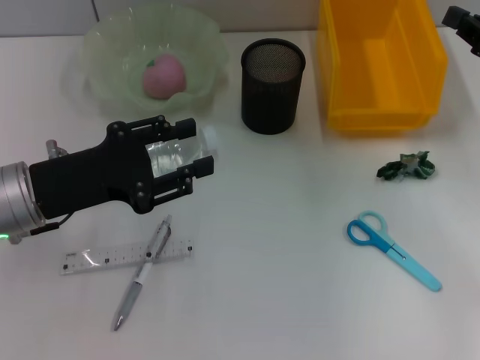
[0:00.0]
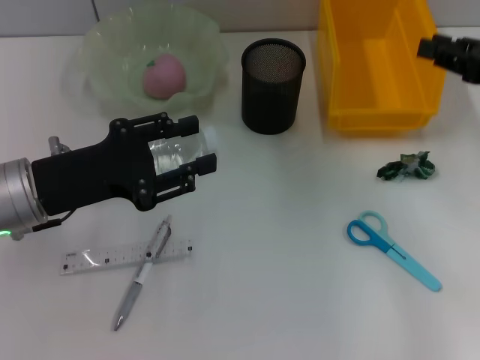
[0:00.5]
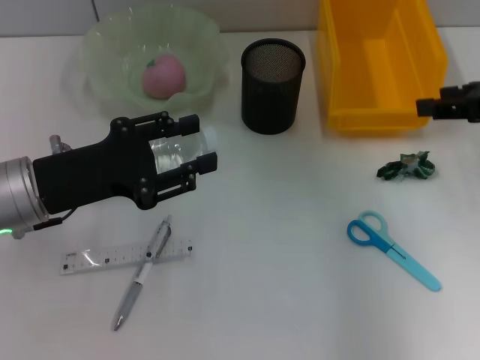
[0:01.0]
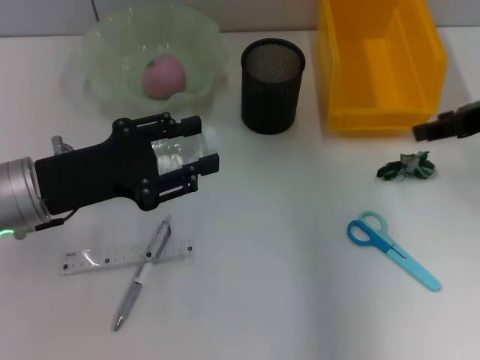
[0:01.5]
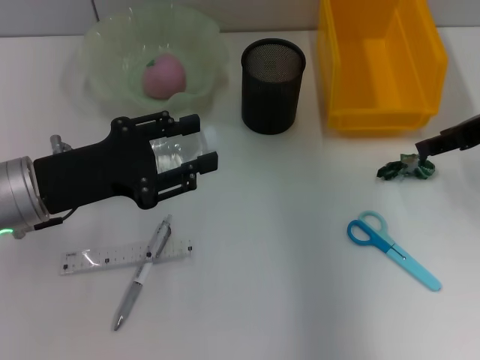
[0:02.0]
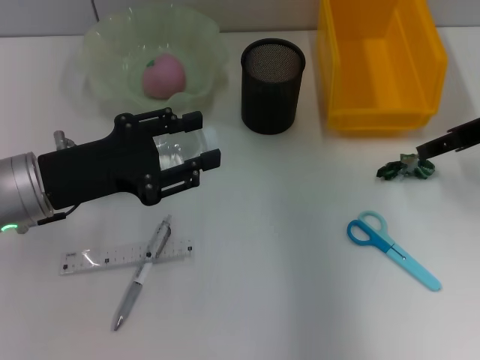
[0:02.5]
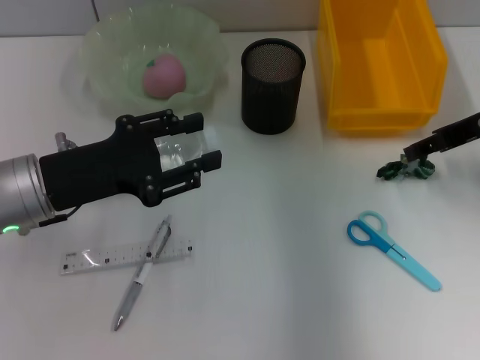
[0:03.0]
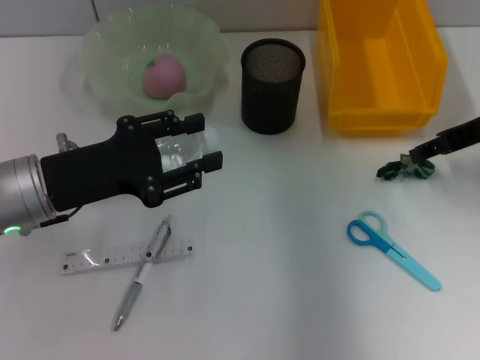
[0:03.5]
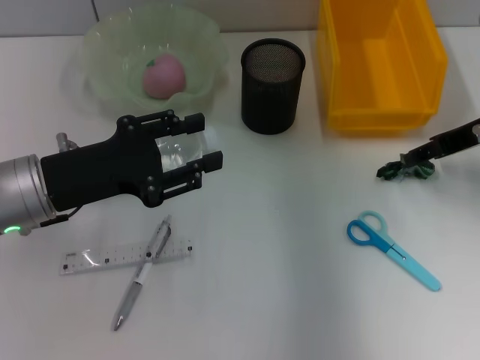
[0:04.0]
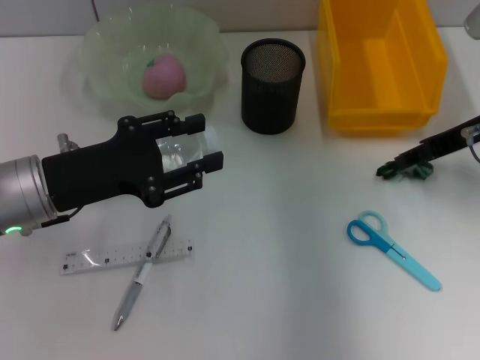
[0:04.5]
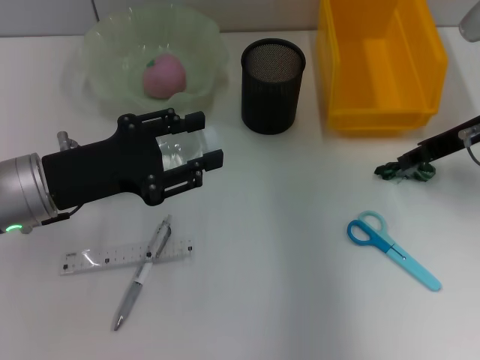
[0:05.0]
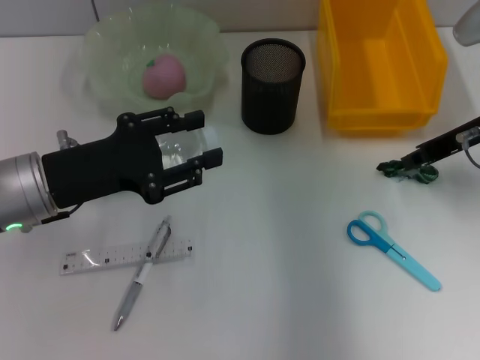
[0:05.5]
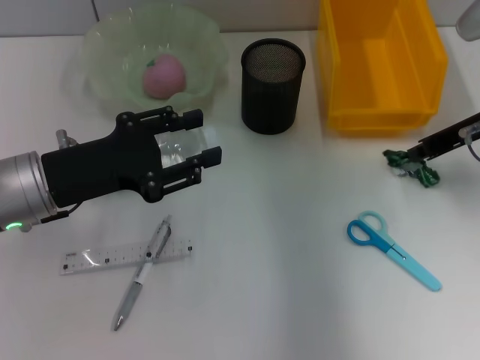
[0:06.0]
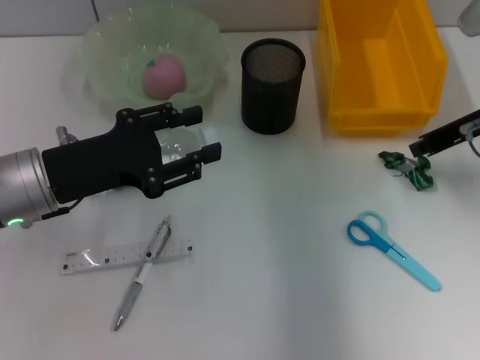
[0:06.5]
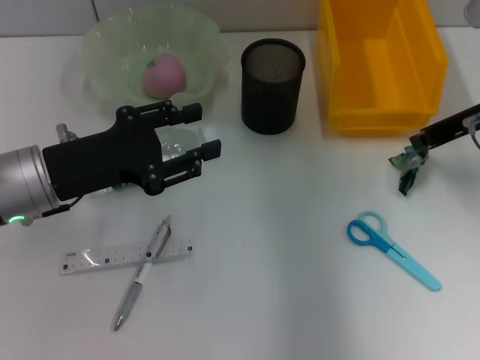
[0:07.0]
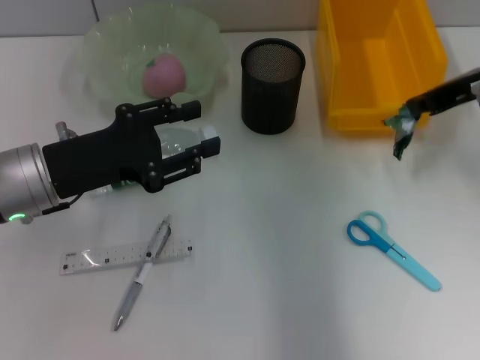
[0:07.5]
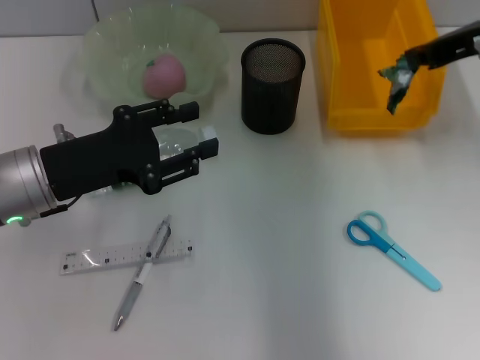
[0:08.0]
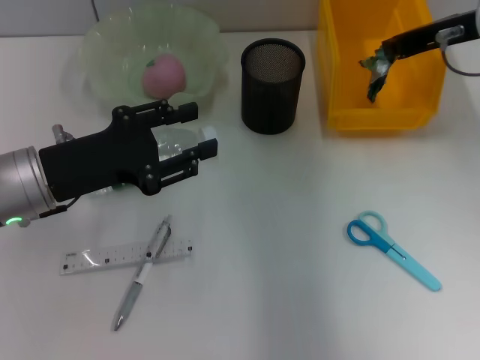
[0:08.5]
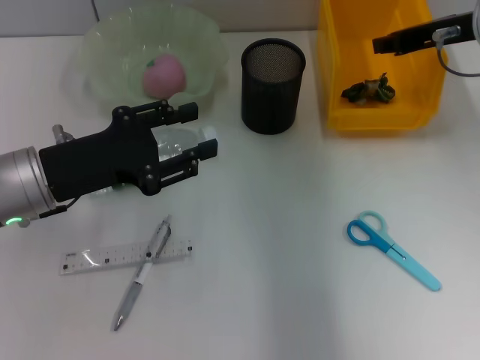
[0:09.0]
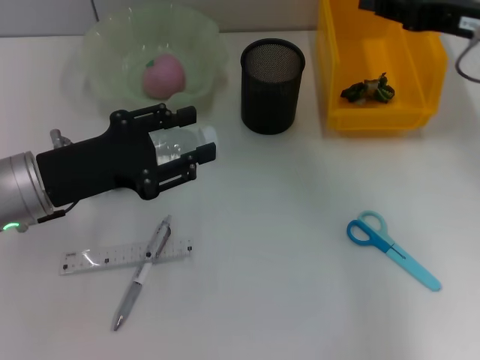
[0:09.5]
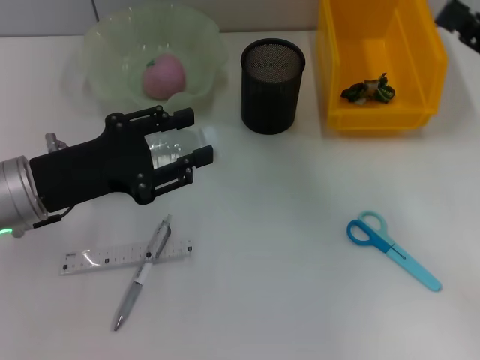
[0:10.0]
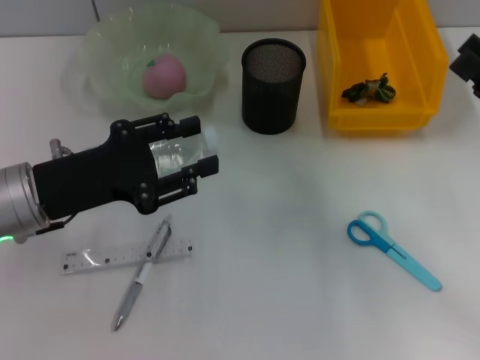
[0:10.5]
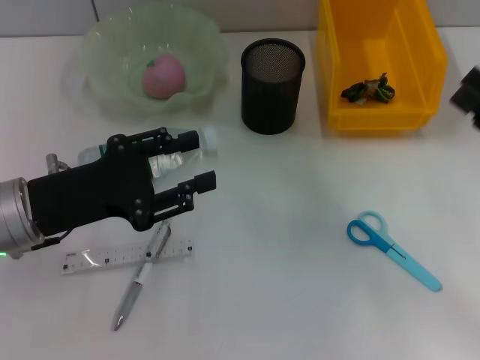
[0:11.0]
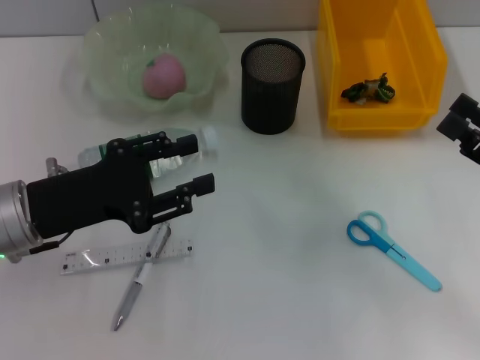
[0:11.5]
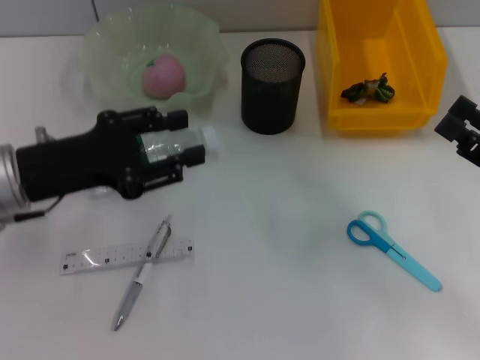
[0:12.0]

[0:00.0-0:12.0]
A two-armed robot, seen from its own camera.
Step, 0.0 to 8.5 s: Place the plastic into the trash can with the right hand.
0.0 to 2.0 s: The right gripper moves roughly 5 cm, and opens up.
2.0 to 4.0 s: The grippers make only small movements.
4.0 to 6.0 s: The right gripper closes its fingers.
6.0 to 8.0 s: The right gripper is displaced upward by about 10 cm.
8.0 to 10.0 s: The right gripper travels backward, downward and to the right by approximately 15 cm, and opens up.
10.0 to 12.0 s: The right gripper travels backward and downward by some 10 cm, and opens.

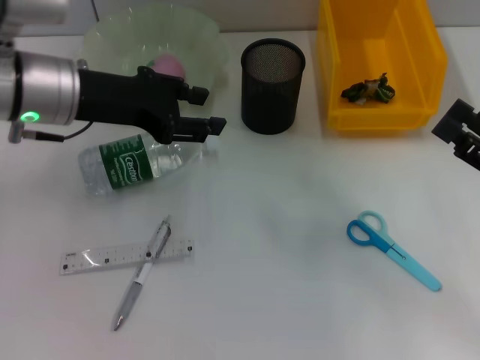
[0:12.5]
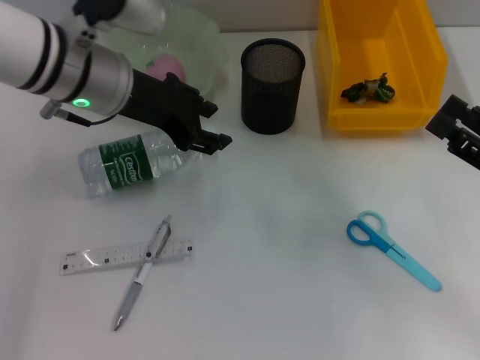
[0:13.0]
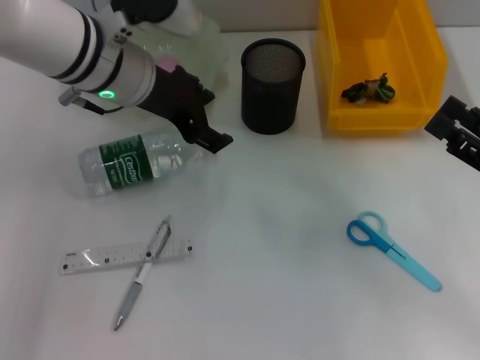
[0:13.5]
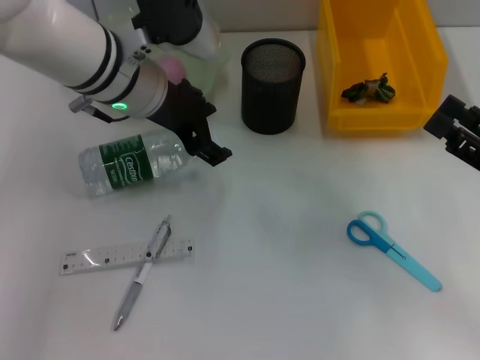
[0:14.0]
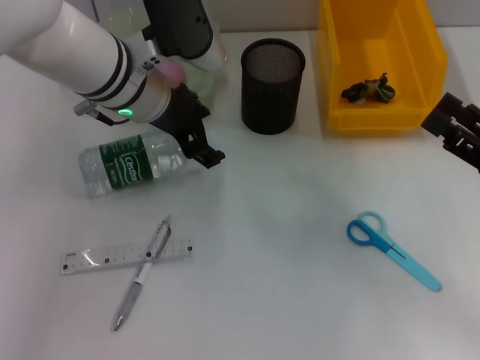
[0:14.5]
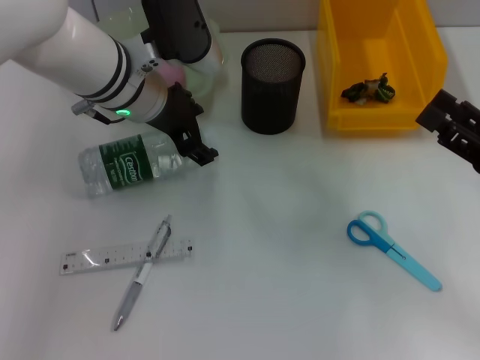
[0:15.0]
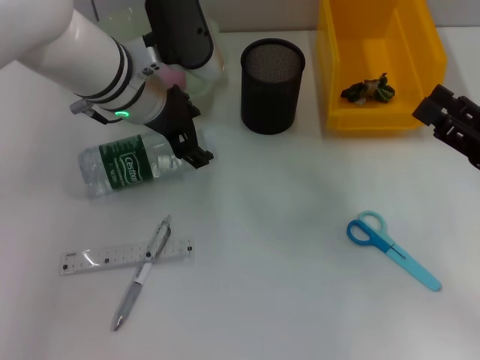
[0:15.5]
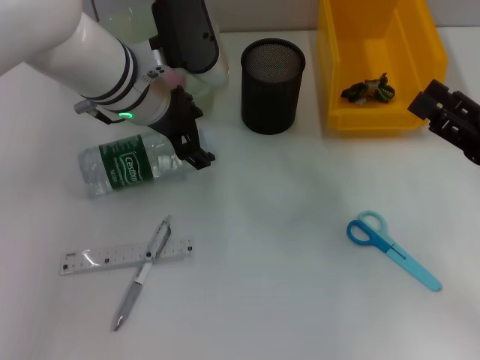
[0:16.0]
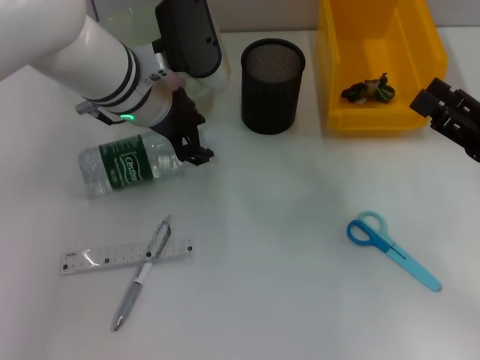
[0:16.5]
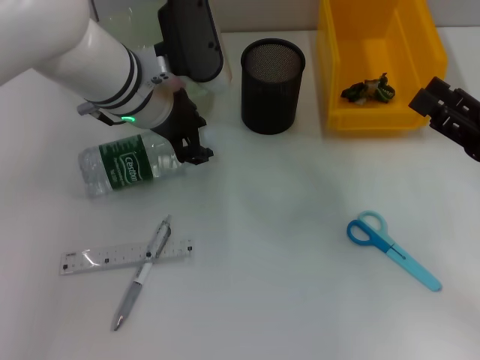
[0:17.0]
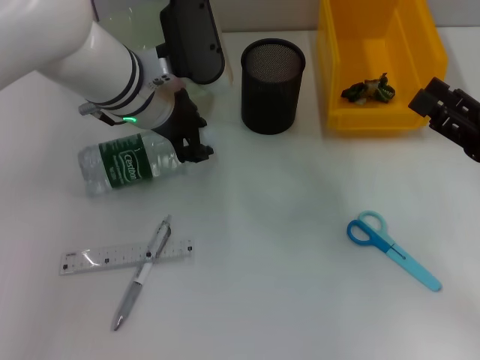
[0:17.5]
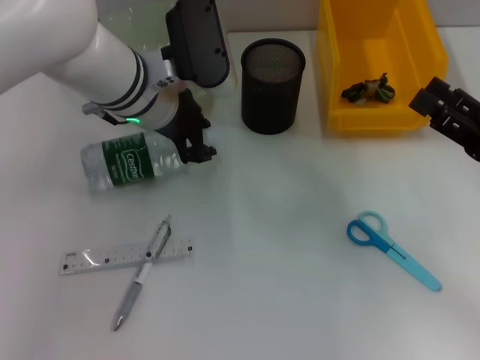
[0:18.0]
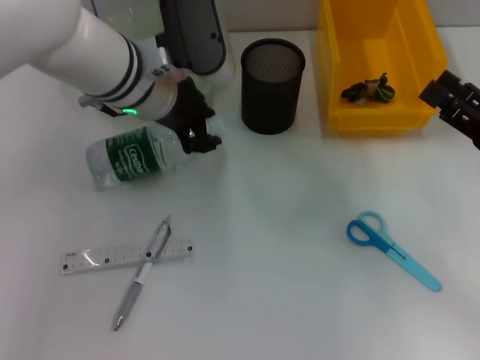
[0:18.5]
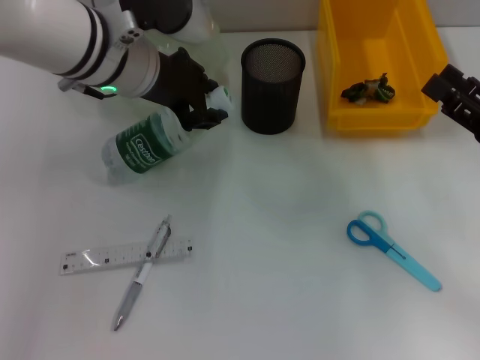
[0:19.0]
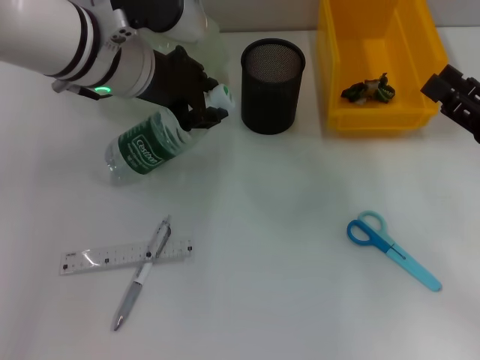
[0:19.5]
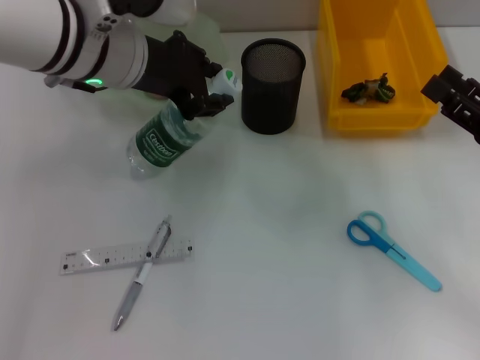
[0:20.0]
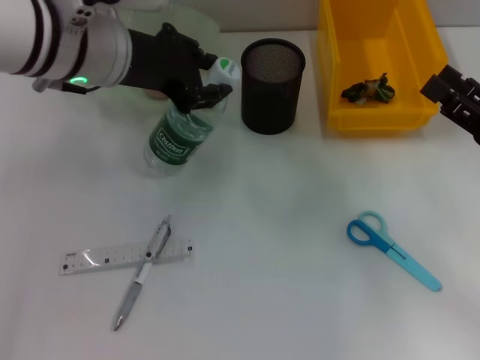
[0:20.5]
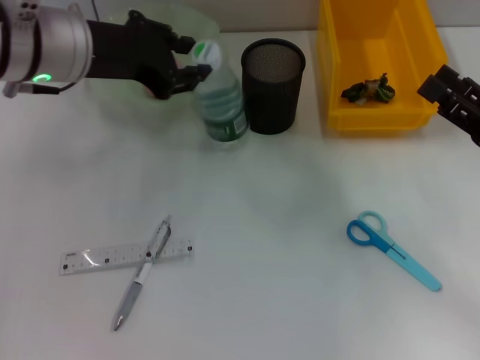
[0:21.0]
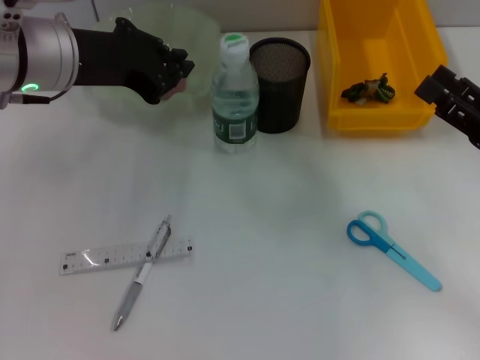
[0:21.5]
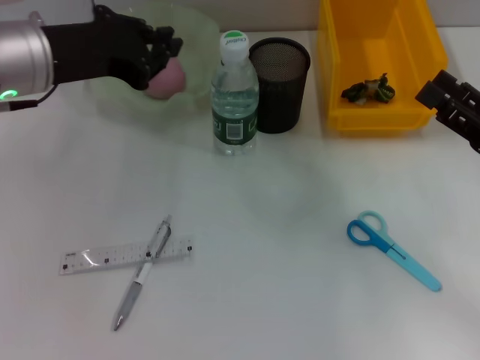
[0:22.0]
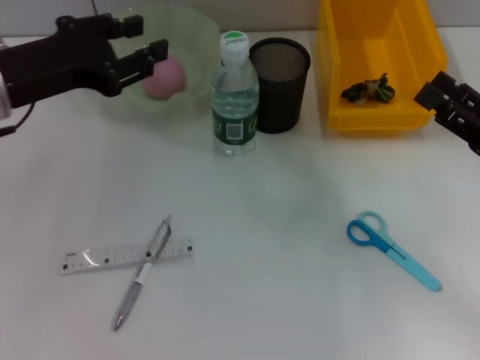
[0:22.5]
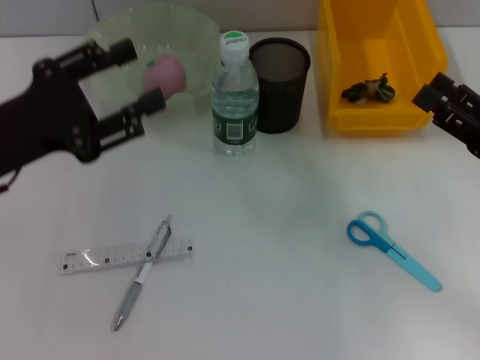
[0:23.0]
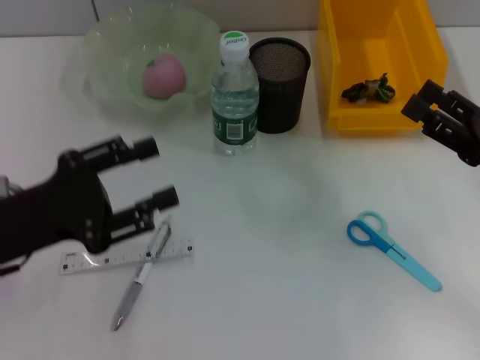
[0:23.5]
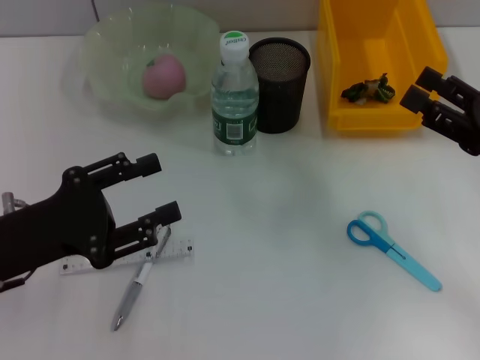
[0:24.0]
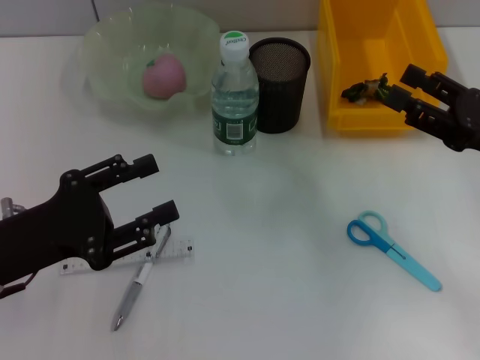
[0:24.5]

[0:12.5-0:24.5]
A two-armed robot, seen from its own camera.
Step, 12.5 to 17.5 s: Grab the water bottle with the left hand.
Step, 18.0 to 21.0 s: Place the water bottle on the table with the left hand.
12.5 to 14.5 s: The left gripper shifts about 10 cm to the right.
14.5 to 16.5 s: The grippers make only small movements.
16.5 to 18.5 s: The left gripper closes its fingers.
18.5 to 20.5 s: The left gripper goes roughly 5 cm upward.
20.5 to 22.5 s: The left gripper goes some 10 cm to the left, and closes, then reopens.
22.5 to 24.5 s: The left gripper is displaced backward and downward by about 15 cm, and opens.

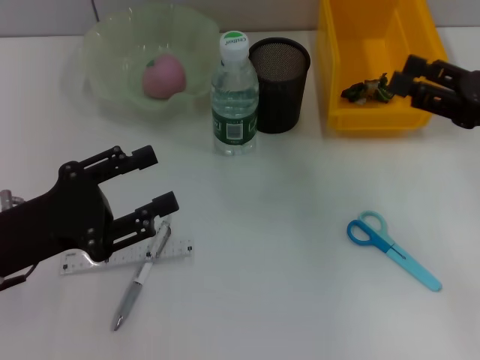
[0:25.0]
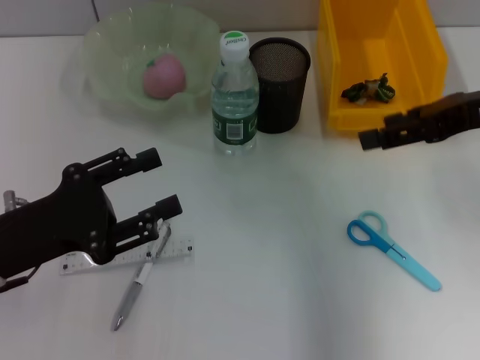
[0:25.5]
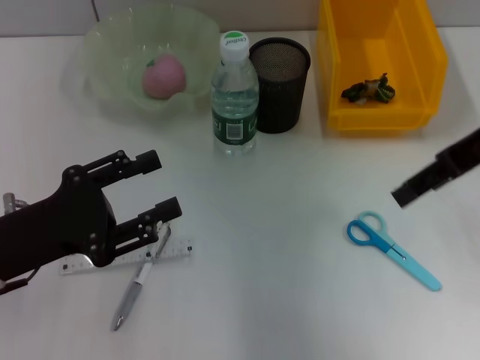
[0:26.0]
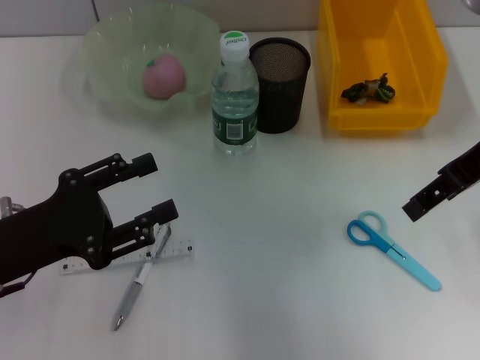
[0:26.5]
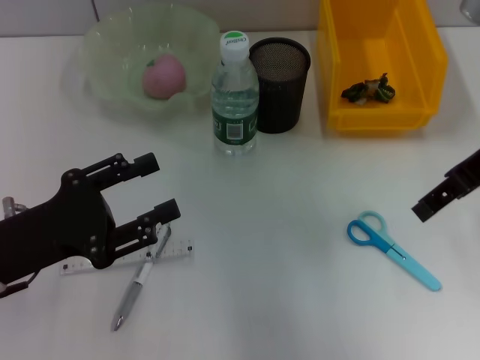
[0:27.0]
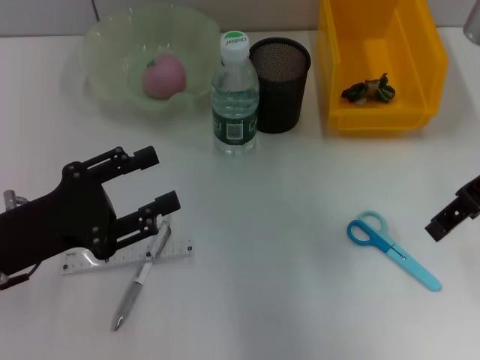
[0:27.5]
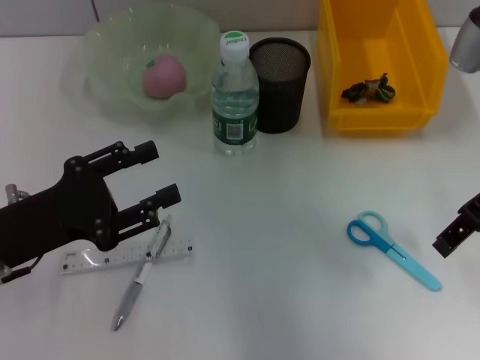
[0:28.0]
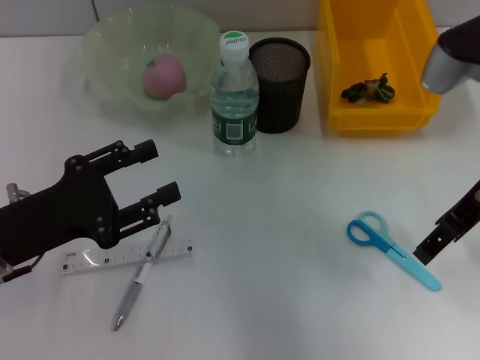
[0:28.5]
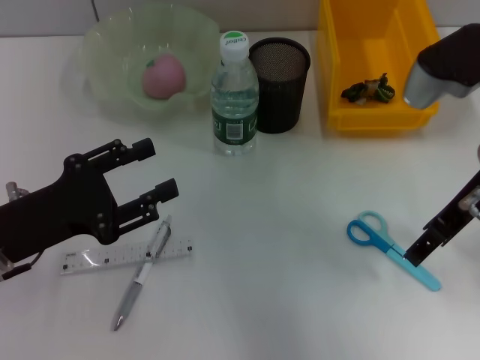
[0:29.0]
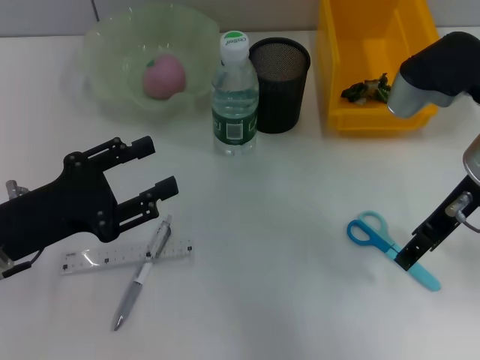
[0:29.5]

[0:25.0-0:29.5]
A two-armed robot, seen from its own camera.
25.0 to 27.0 s: The right gripper heads upward and to the left, covering about 10 cm.
27.0 to 29.5 s: The right gripper travels downward by some 5 cm.
